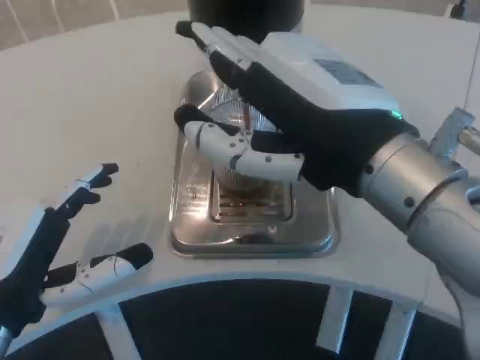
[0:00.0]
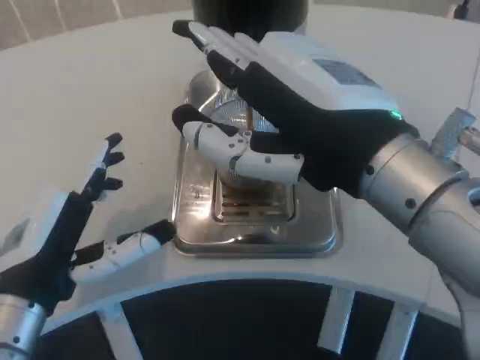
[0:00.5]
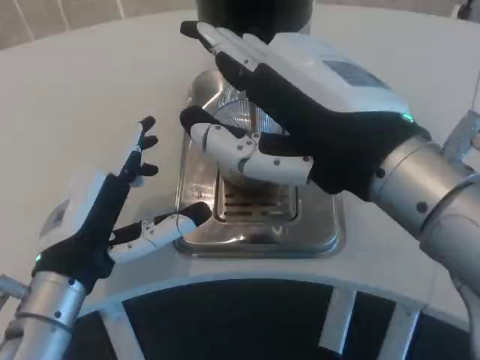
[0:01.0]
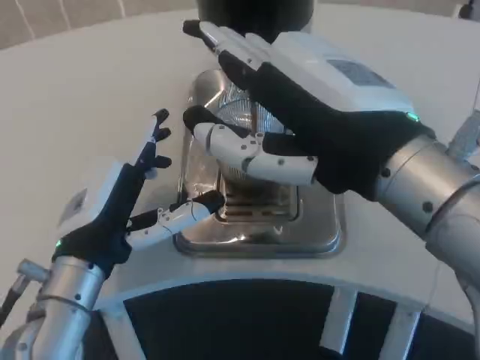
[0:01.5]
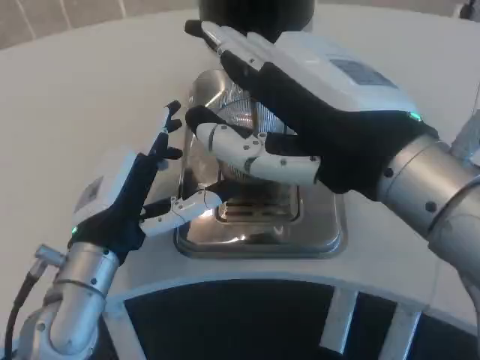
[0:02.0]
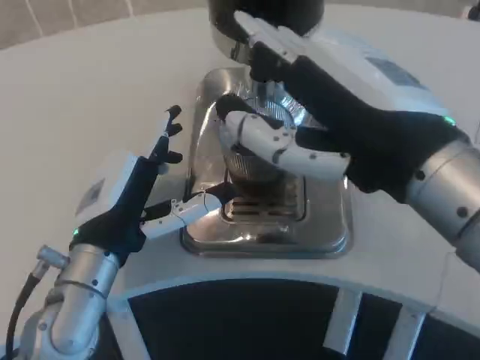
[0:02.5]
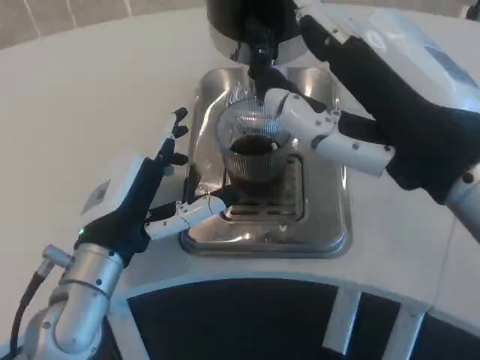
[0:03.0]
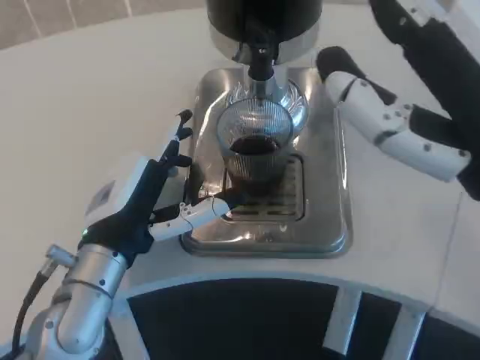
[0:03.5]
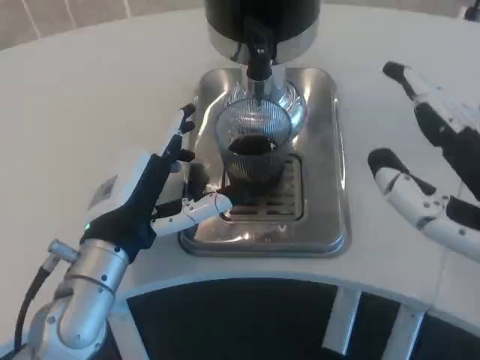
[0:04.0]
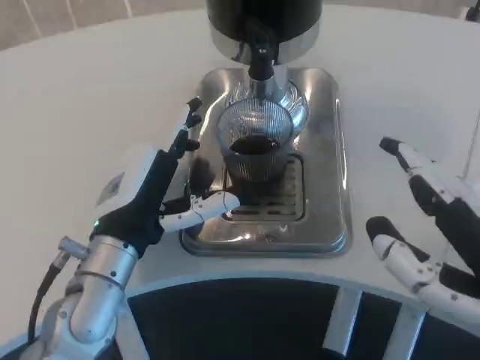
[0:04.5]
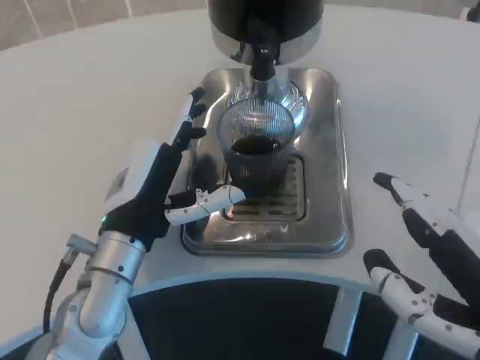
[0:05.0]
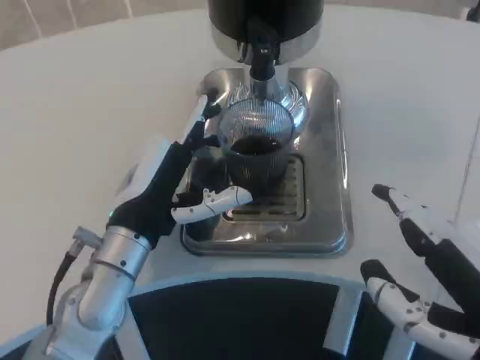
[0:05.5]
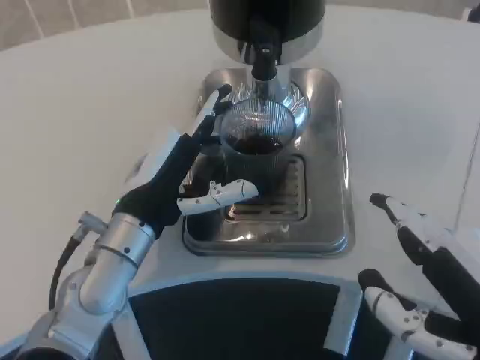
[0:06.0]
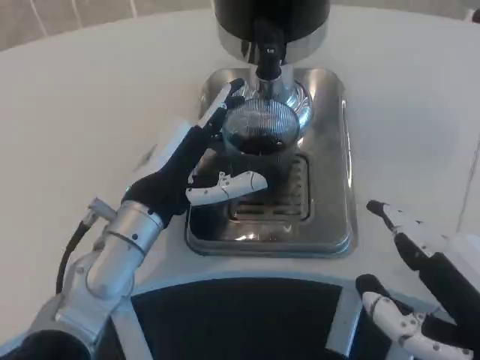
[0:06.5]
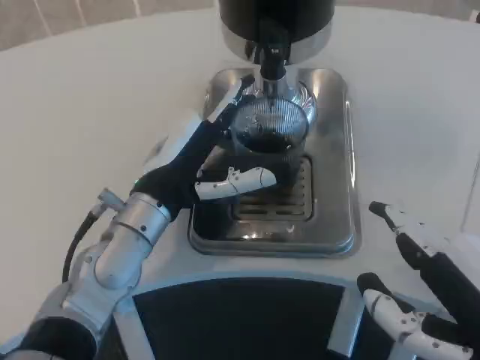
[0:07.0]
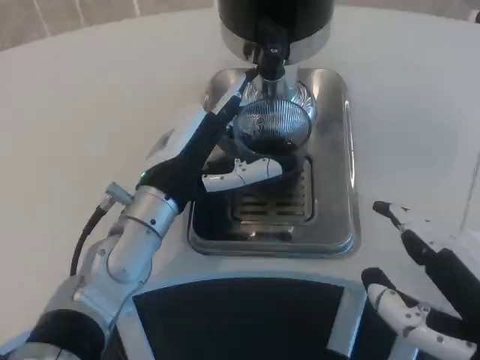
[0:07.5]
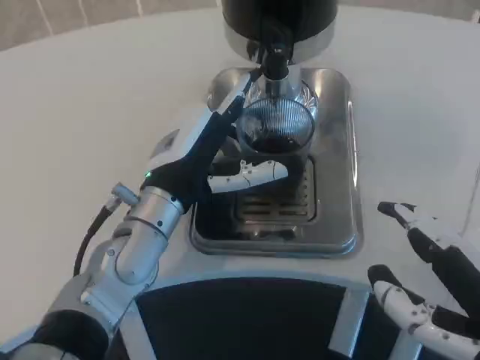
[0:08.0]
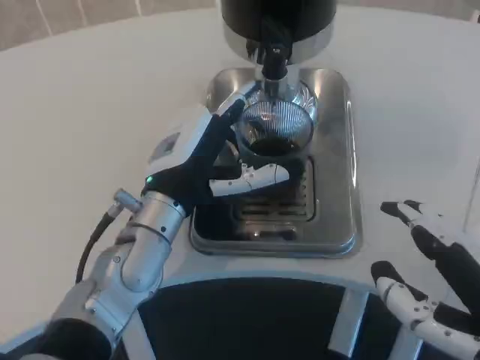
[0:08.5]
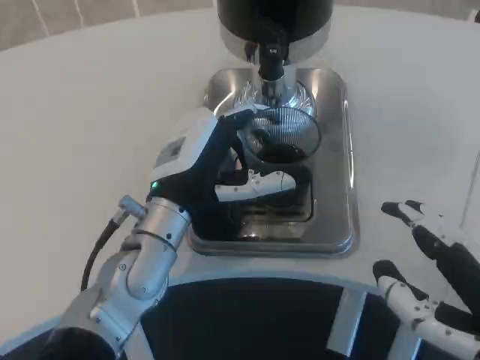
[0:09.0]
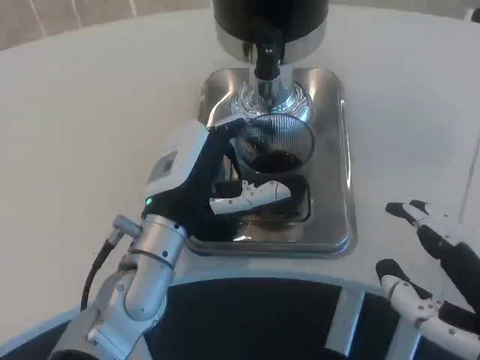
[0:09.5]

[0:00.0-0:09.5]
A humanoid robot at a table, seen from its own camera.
Task of the whole recording: Grasp the cup under the faucet to collect the drink, then remove the cup.
0:00.0 to 0:02.0: The left hand moves forward and to the right, some 10 cm.
0:02.0 to 0:04.0: The right hand heads to the right, downward and backward, covering some 10 cm.

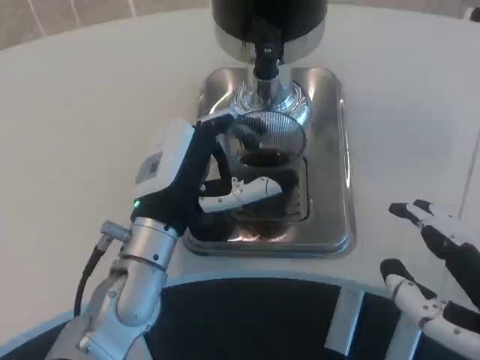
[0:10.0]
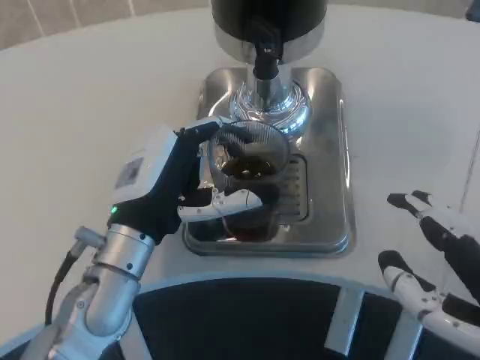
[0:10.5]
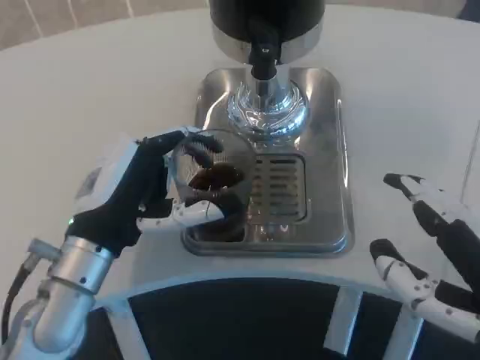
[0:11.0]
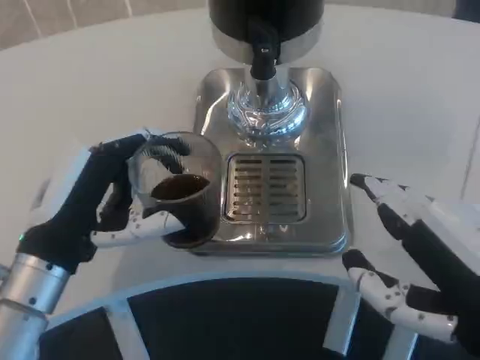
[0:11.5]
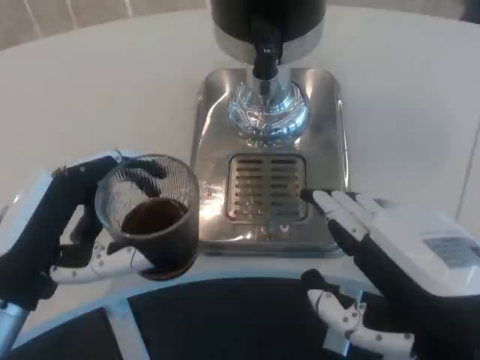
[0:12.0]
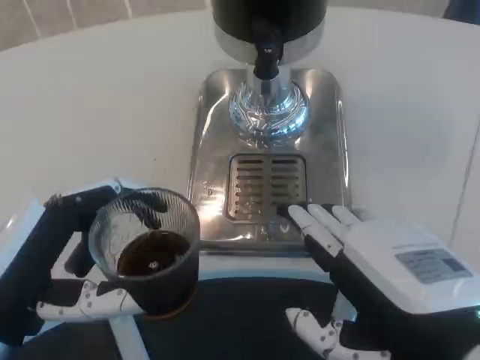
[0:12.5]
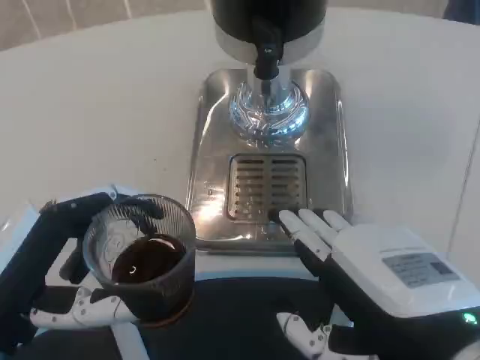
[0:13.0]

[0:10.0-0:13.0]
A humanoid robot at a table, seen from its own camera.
Task of the whole recording: Grasp the cup under the faucet to collect the drink, then remove the cup.
0:10.0 to 0:11.5: The left hand shifts about 10 cm to the left and backward.
0:11.5 to 0:13.0: The left hand goes approximately 5 cm backward.

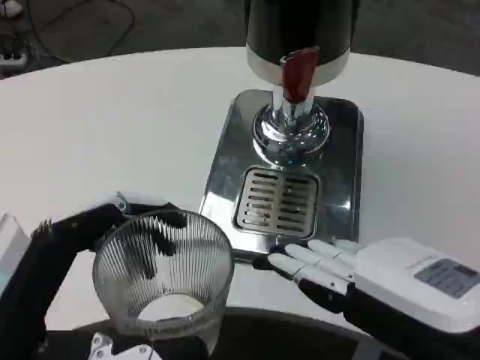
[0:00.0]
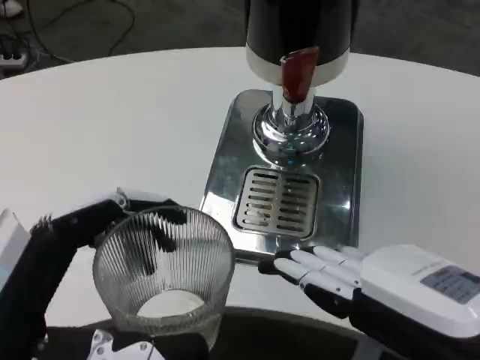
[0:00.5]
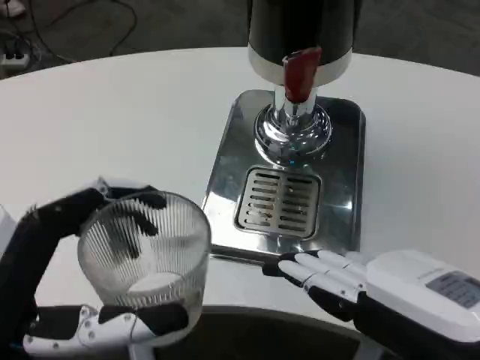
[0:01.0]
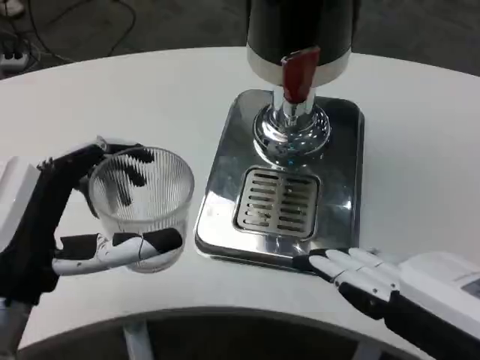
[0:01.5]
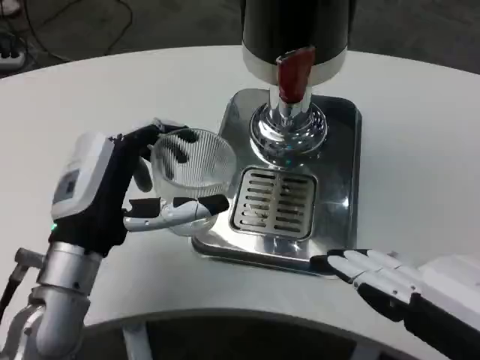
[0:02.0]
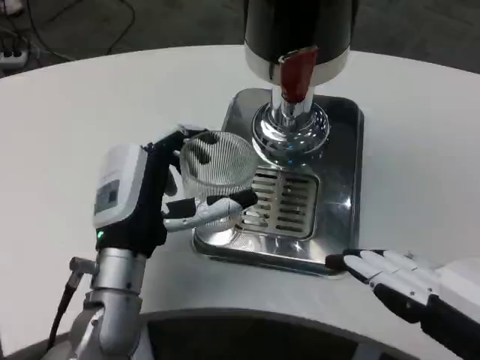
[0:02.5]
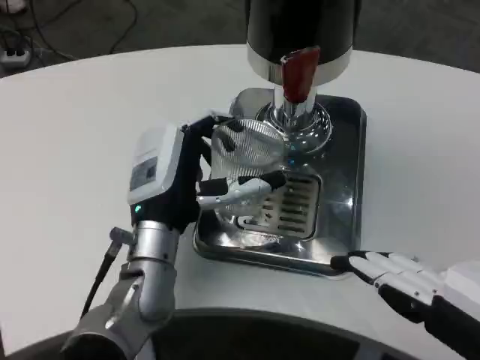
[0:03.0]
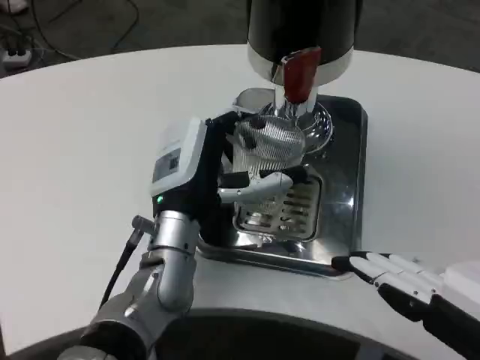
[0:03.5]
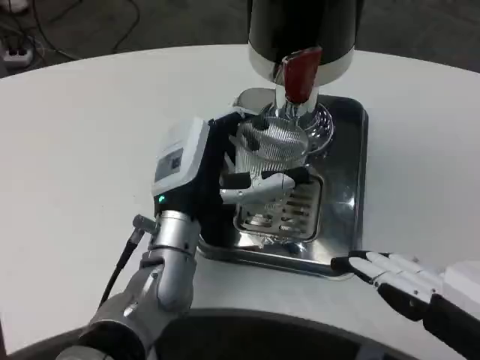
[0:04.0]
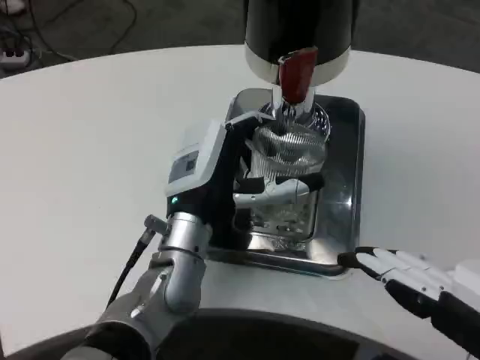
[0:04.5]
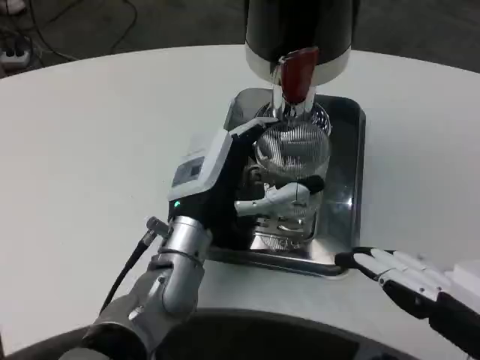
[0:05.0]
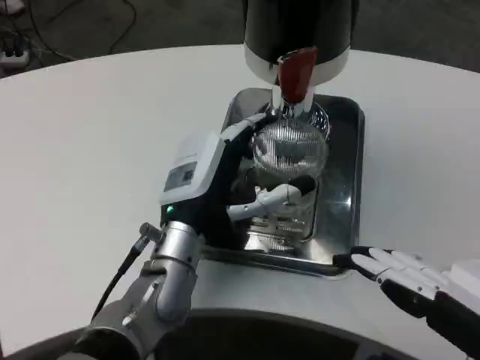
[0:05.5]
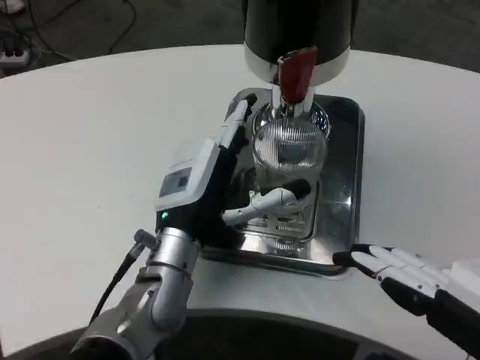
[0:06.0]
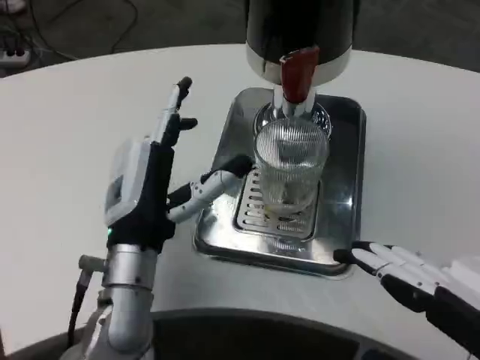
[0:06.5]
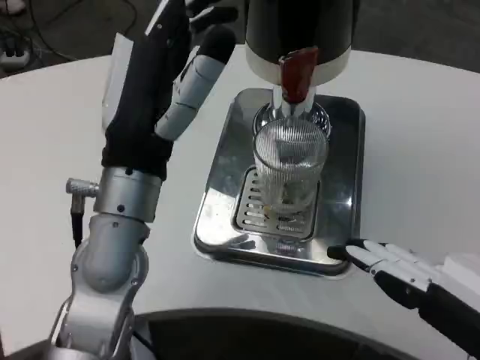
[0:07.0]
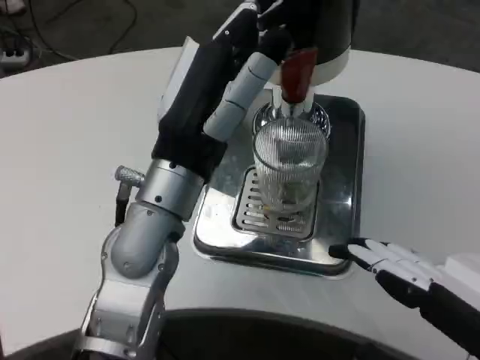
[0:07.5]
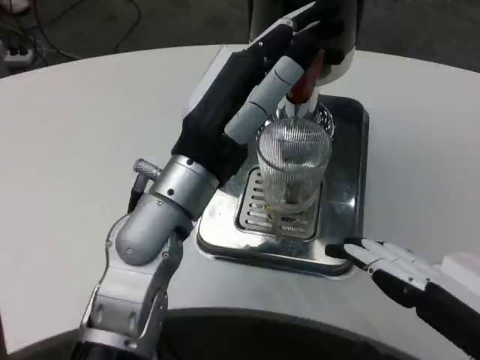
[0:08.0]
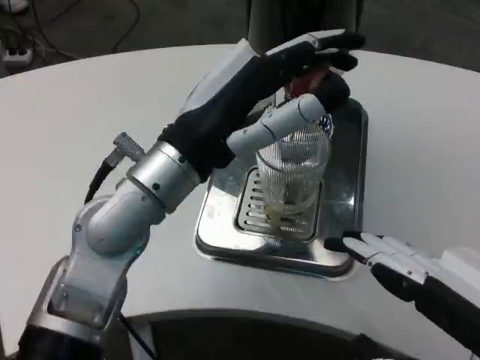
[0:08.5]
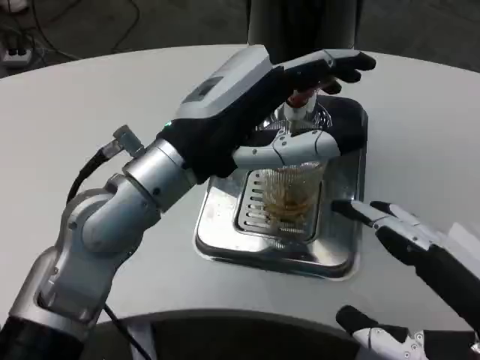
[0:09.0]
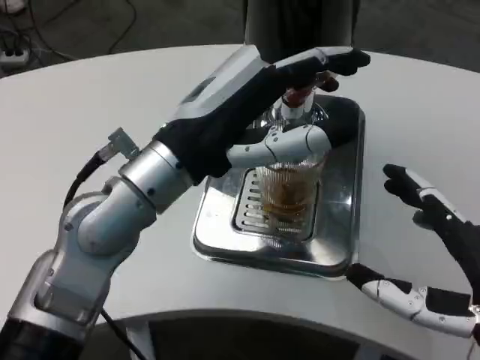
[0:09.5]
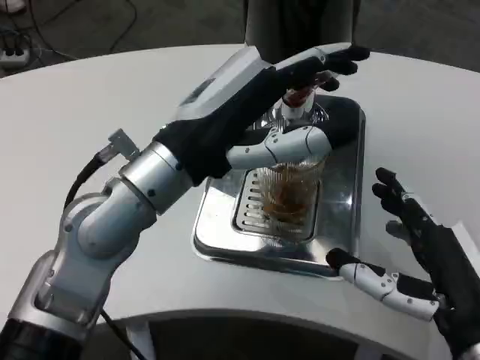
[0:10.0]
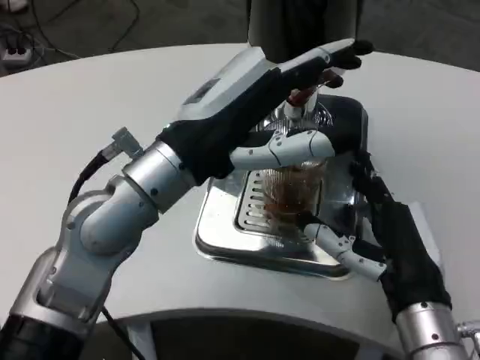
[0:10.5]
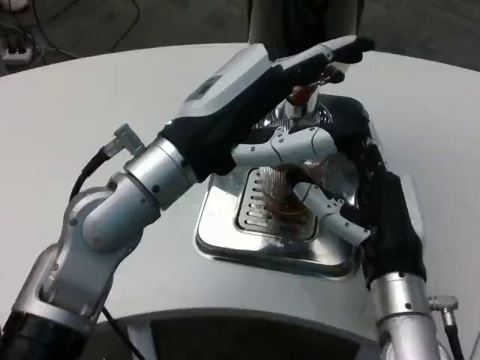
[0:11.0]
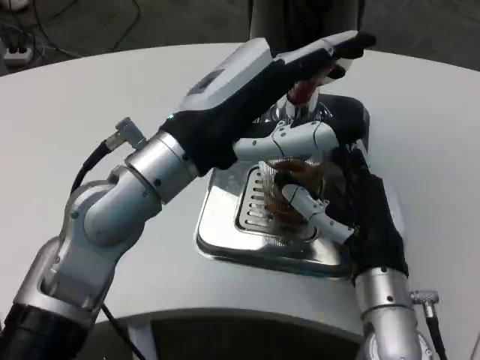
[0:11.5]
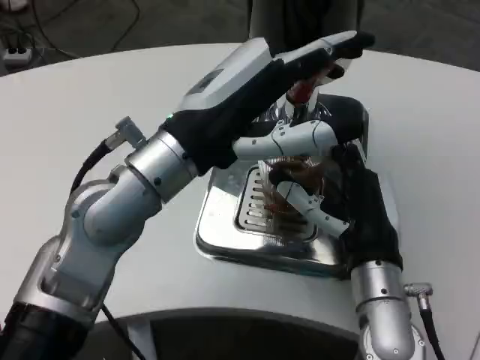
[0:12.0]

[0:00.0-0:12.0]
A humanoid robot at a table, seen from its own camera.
Task of the whole recording: Grasp the cup under the faucet to collect the drink, then remove the cup.
0:00.0 to 0:02.0: The left hand goes roughly 15 cm forward.
0:02.0 to 0:04.0: The left hand shifts some 10 cm to the right.
0:04.0 to 0:06.0: There are only small adjustments of the hands.
0:06.0 to 0:08.0: The left hand shifts approximately 10 cm upward.
0:08.0 to 0:10.0: The right hand is displaced downward and forward by about 10 cm.
0:10.0 to 0:12.0: The right hand heads forward and to the left, covering about 15 cm.

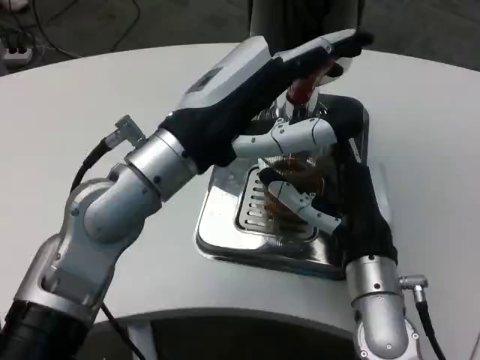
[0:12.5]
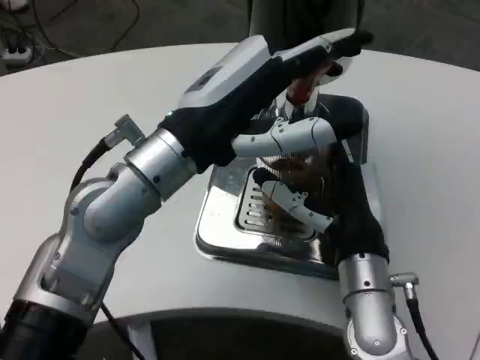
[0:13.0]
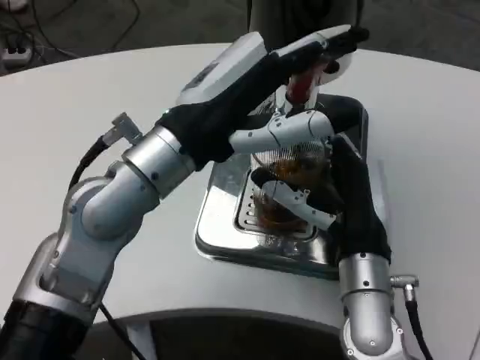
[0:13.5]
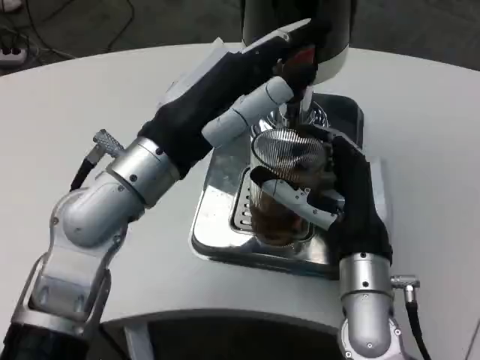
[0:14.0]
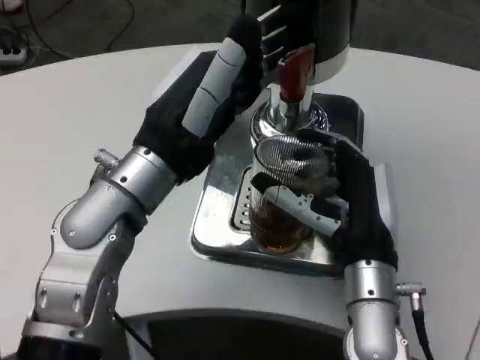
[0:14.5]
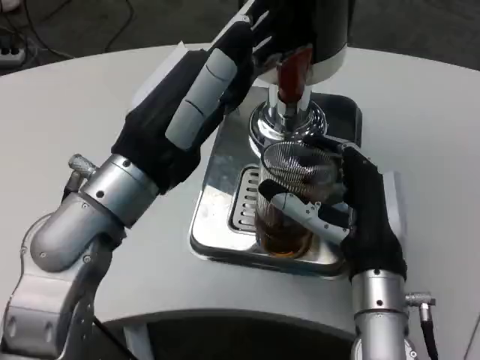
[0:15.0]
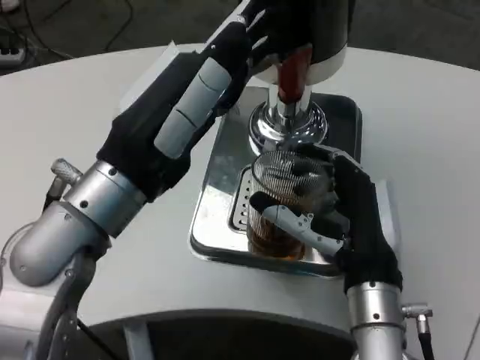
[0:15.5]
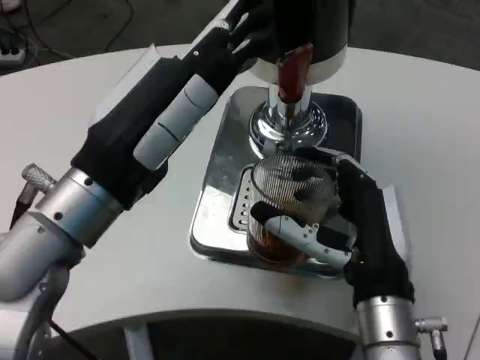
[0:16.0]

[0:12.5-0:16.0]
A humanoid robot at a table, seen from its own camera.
Task of the whole recording: Grasp the cup under the faucet to collect the drink, then remove the cup.
0:14.5 to 0:16.0: The left hand goes about 5 cm backward.
